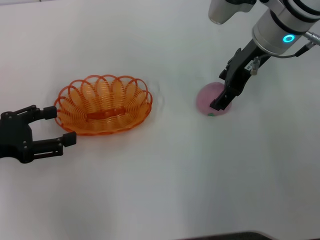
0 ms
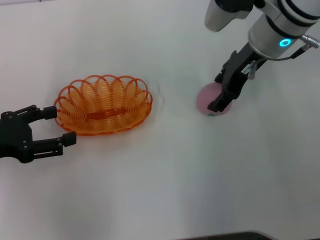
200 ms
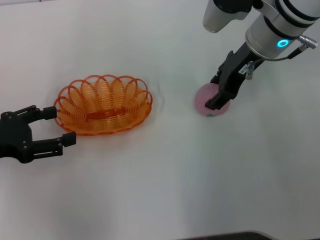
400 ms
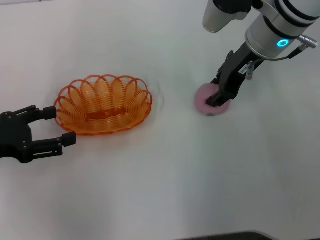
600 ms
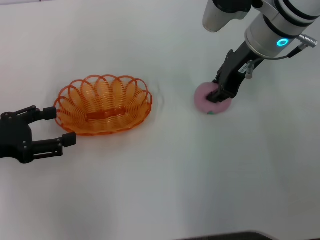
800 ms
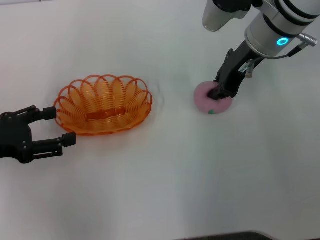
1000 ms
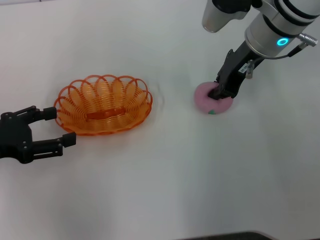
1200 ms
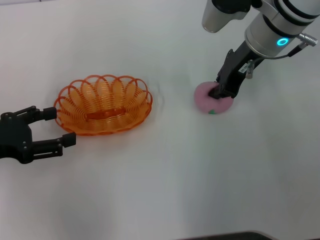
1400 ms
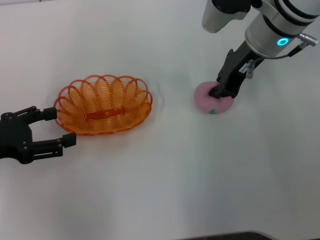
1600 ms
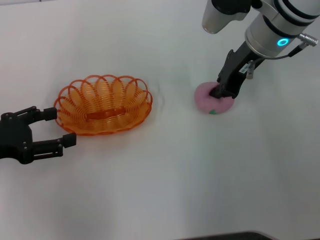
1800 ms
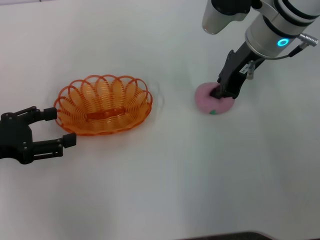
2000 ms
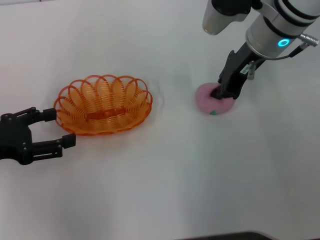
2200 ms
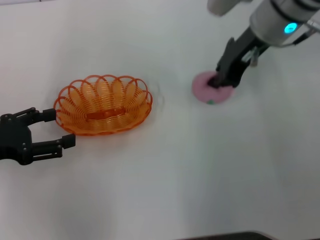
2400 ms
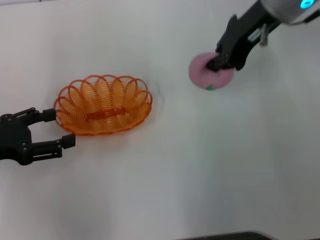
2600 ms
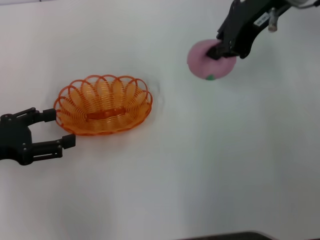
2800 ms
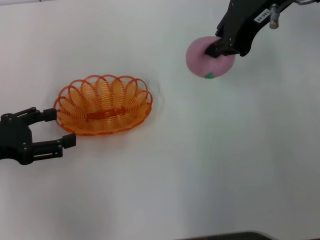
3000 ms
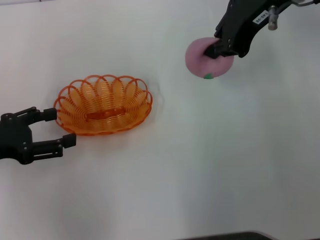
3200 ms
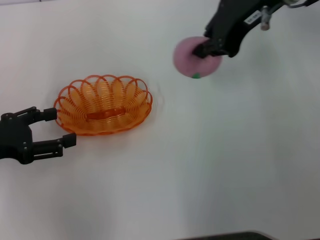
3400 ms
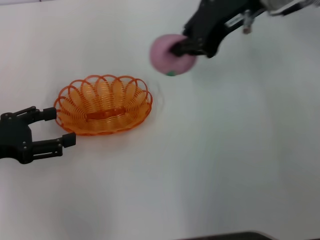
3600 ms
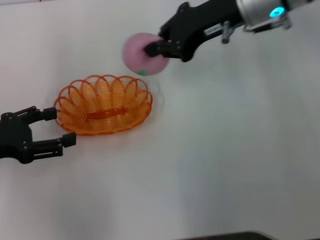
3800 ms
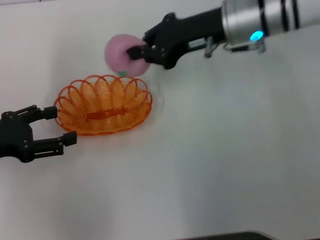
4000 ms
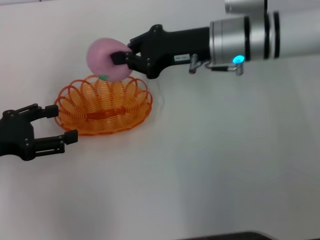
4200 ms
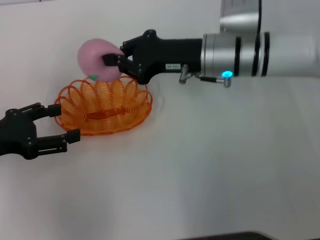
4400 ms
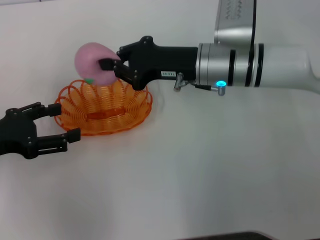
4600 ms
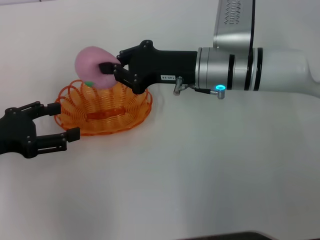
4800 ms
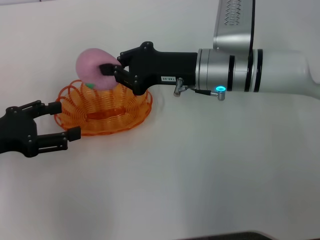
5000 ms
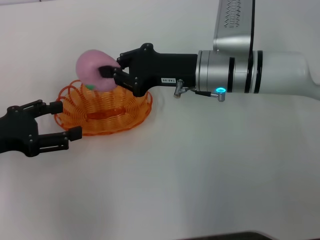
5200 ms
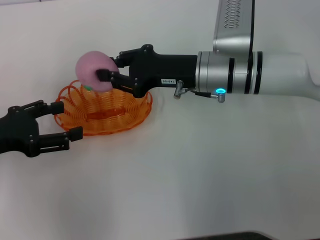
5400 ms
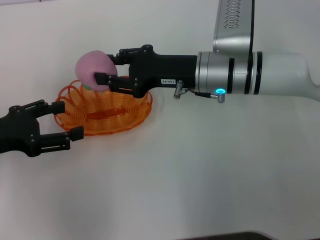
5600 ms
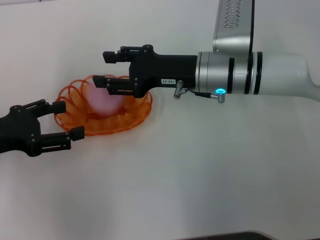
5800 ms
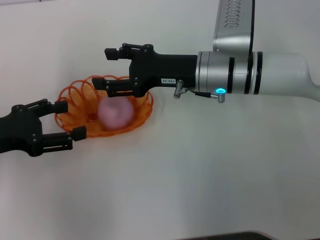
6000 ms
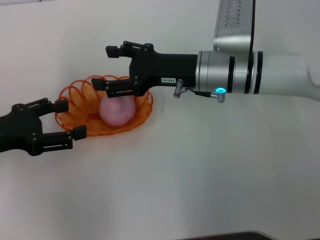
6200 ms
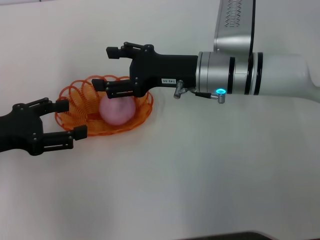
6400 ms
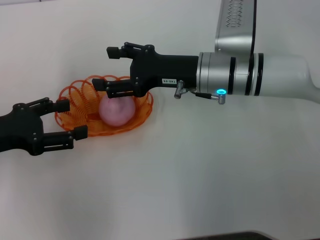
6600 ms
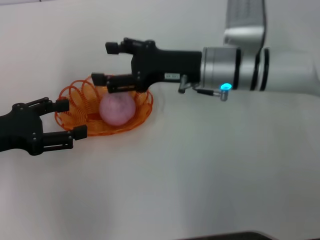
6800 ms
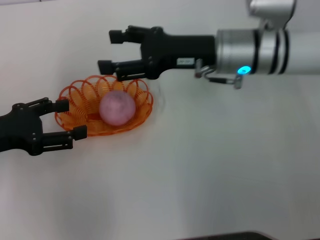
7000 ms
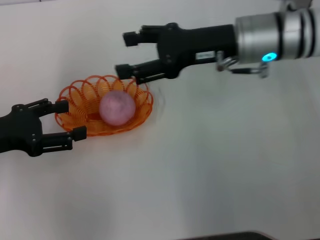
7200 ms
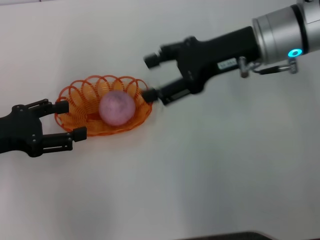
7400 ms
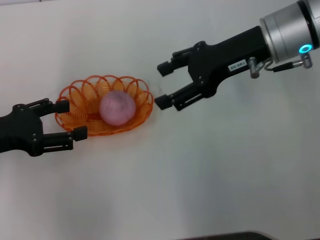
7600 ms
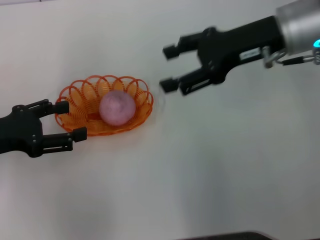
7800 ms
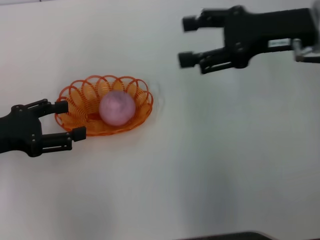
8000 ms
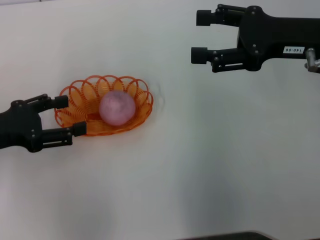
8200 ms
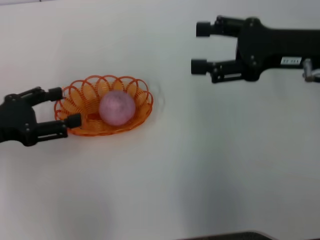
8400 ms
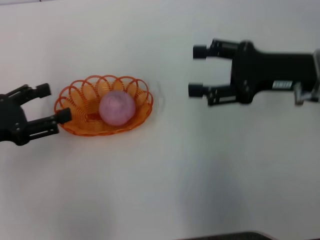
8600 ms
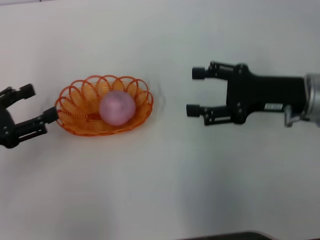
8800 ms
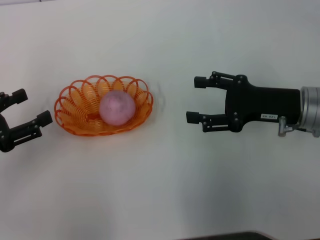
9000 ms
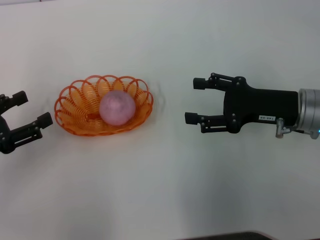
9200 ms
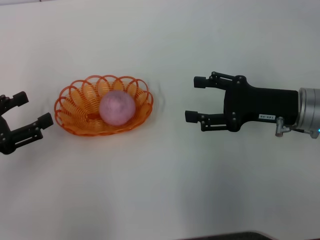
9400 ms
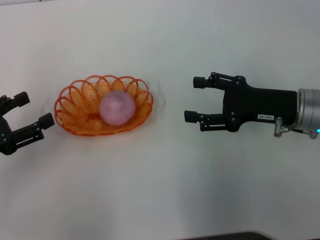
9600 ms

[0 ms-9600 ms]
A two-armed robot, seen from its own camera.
Step, 0 ms to 2400 ms: Pick up the peach with the right gripper.
Step, 2600 ms to 6600 ms: Place the peach into the basket with the right gripper.
0 ms to 1600 ms: The right gripper closes its fingers.
1600 ms to 3200 ms: The right gripper is displaced upward by some 10 cm.
3200 ms to 4800 ms: The right gripper shifts about 15 cm downward.
4800 ms to 6400 ms: The right gripper opens.
6400 ms to 8000 ms: The right gripper heads to the right and upward, covering roughly 15 cm.
8000 ms to 9600 ms: The right gripper is displaced downward by some 10 cm. The left gripper moves about 5 cm.

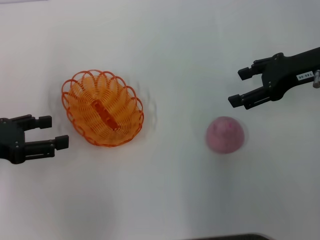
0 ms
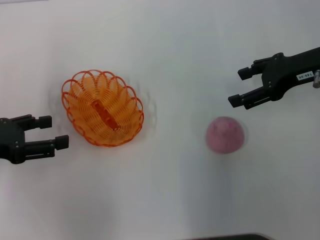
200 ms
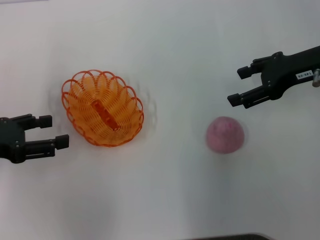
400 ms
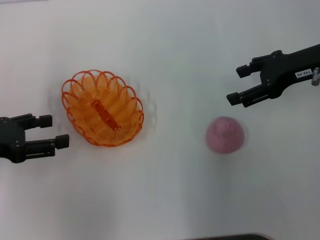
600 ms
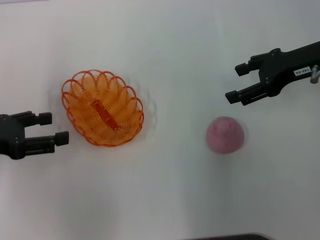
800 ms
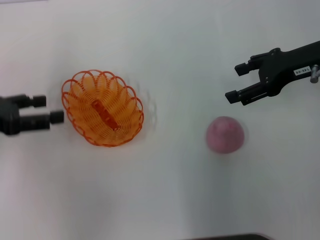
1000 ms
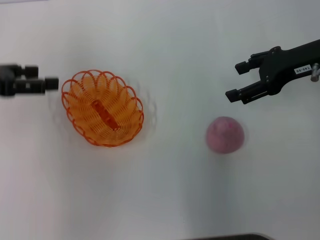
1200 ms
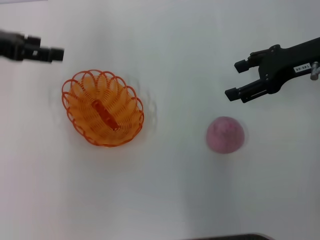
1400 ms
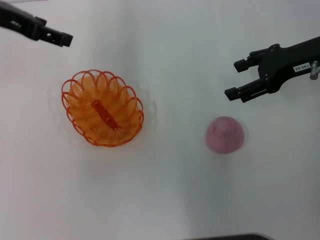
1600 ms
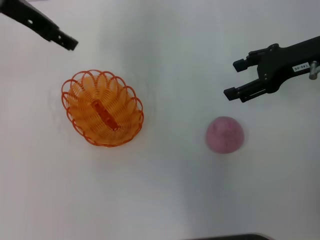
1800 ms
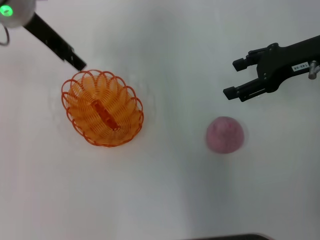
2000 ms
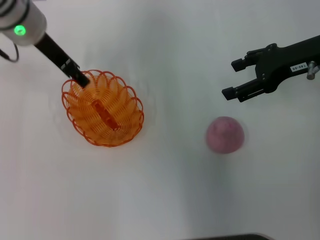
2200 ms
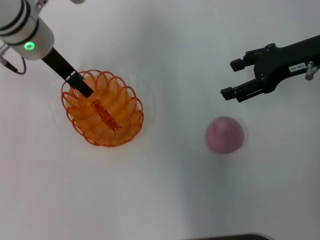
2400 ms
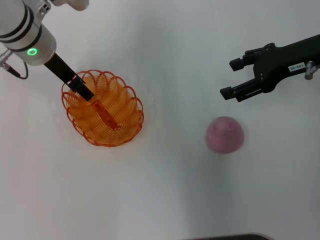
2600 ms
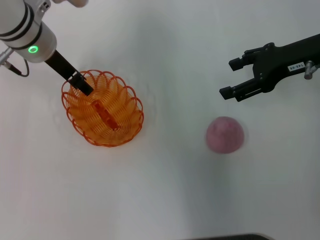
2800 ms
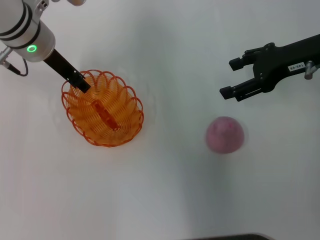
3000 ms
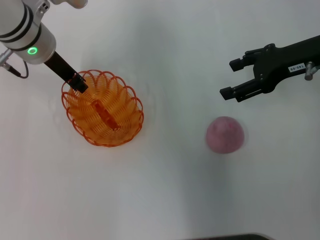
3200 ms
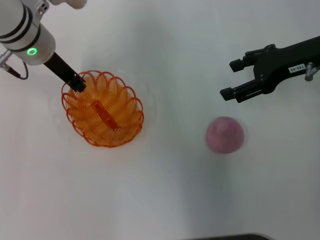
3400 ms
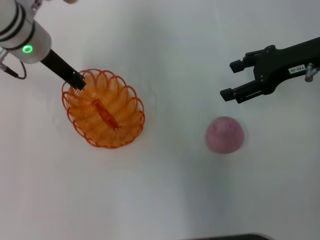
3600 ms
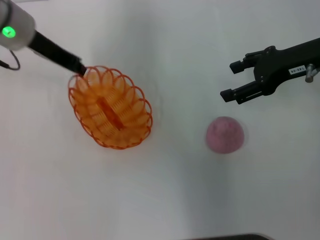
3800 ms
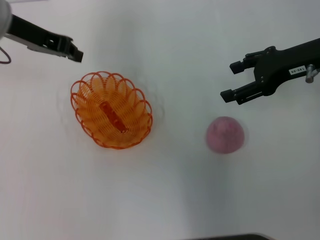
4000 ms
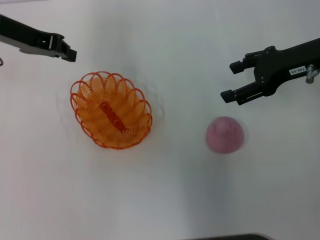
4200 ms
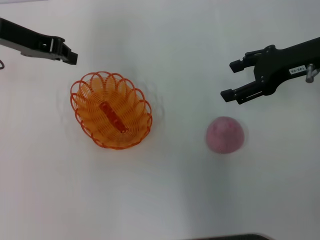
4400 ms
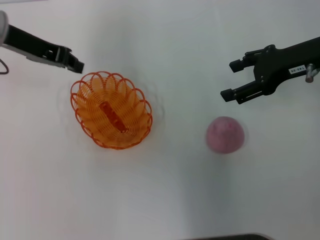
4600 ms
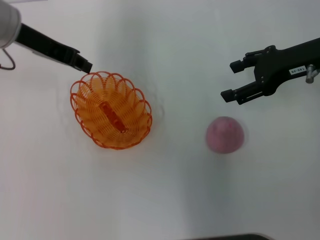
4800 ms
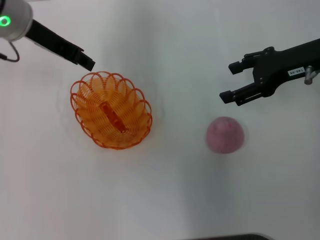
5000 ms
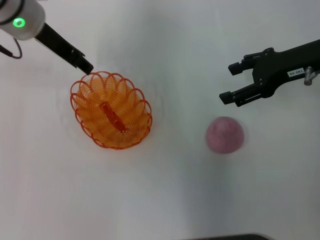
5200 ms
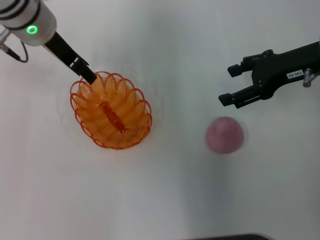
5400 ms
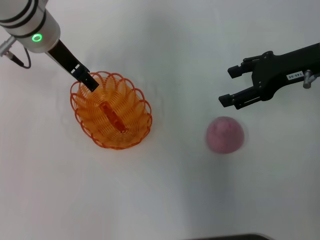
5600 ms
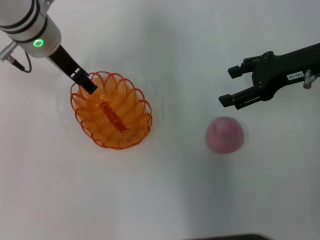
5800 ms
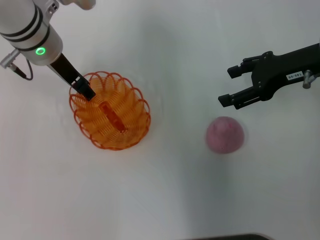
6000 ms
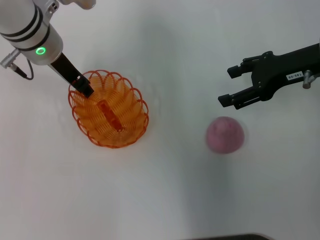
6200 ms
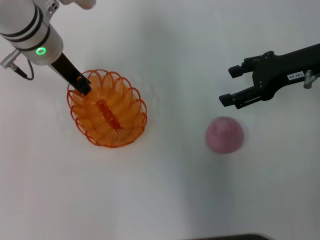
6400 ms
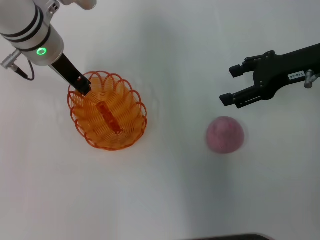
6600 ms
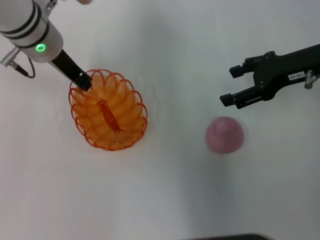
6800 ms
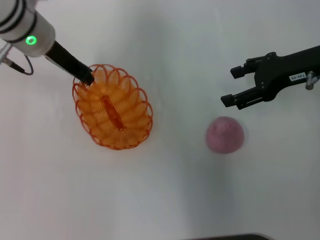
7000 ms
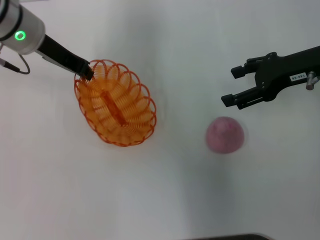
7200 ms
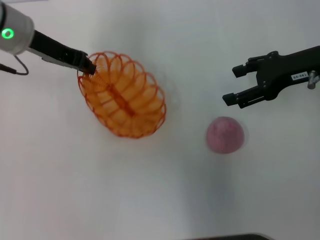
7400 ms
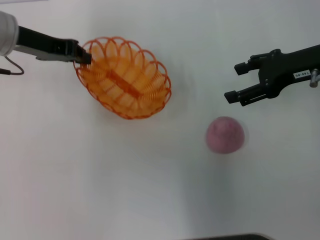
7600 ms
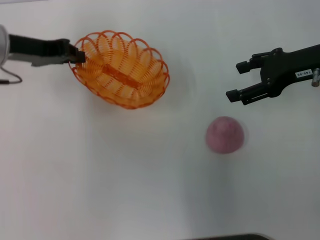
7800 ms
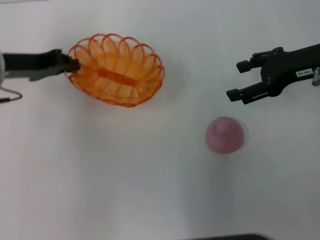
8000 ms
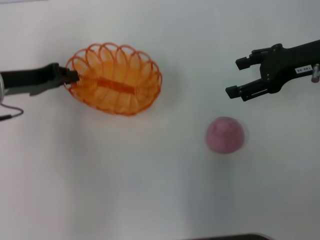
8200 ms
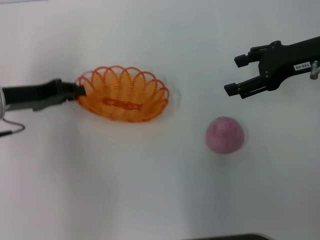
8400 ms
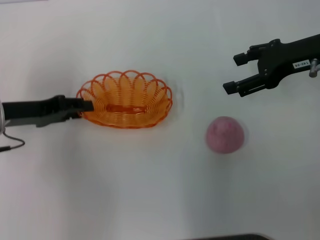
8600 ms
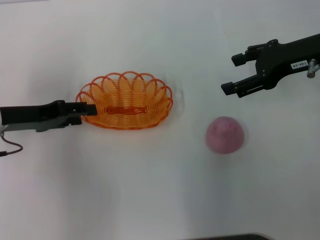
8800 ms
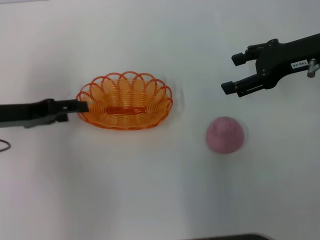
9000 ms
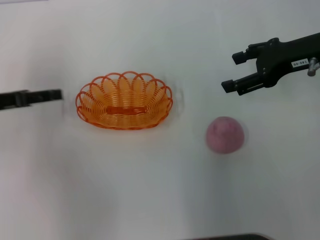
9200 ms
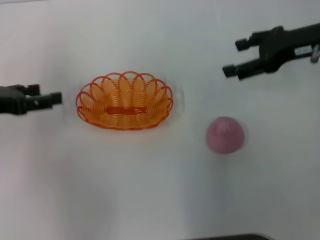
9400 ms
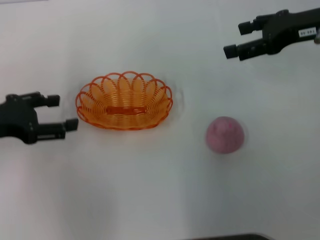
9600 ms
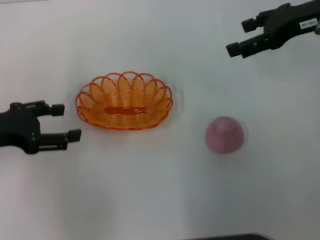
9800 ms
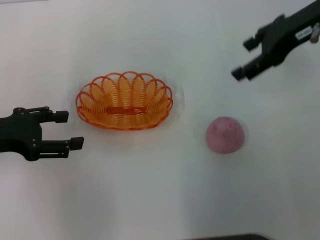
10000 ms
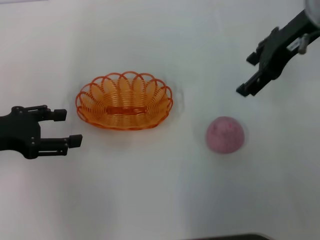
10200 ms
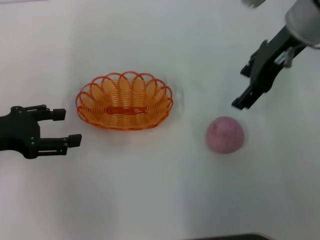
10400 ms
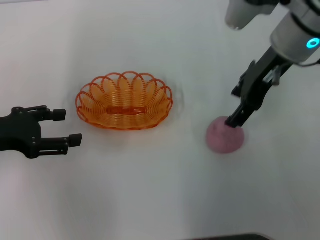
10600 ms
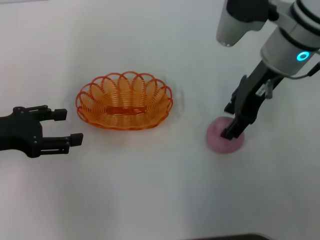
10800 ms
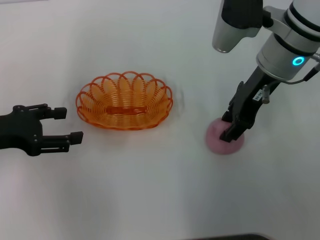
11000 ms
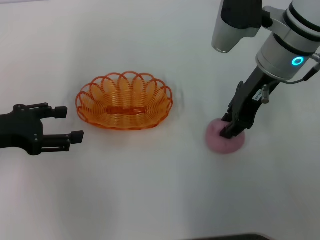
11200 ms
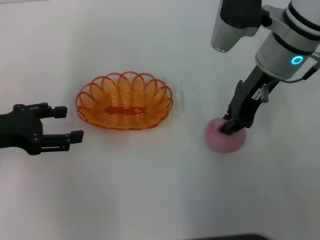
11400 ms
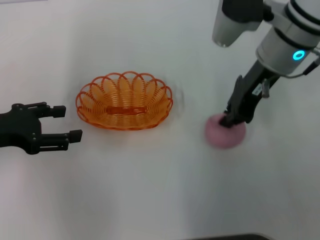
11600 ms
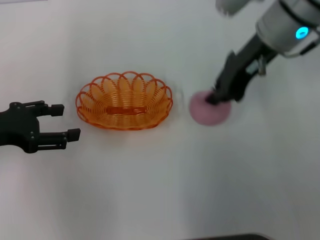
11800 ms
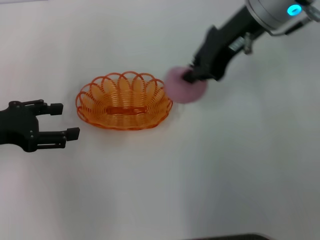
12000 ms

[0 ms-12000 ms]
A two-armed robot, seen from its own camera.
Step, 0 ms to 7200 ms: Pick up the basket with the left gripper.
Step, 7400 ms to 9200 ms: Place the basket in the center of view with the left gripper.
Step, 9400 ms to 11600 ms: Pick up the peach with the right gripper.
0 ms to 1600 ms: The left gripper shifts some 20 cm forward, upward and to the right.
1600 ms to 3000 ms: The left gripper moves downward and to the right, roughly 10 cm.
3000 ms to 4400 ms: The left gripper travels to the left by approximately 5 cm, and closes up.
4400 ms to 6000 ms: The left gripper goes roughly 10 cm to the right, and opens its fingers.
6000 ms to 7600 ms: The left gripper heads to the left, covering some 5 cm, and closes up.
7600 ms to 9000 ms: The left gripper travels backward, downward and to the left by approximately 15 cm, and opens up.
9000 ms to 10400 ms: The right gripper goes some 10 cm to the left.
10400 ms to 12000 ms: The right gripper closes up.
